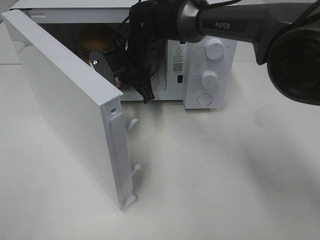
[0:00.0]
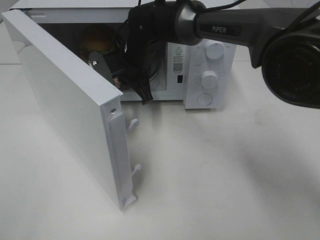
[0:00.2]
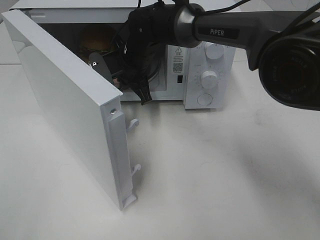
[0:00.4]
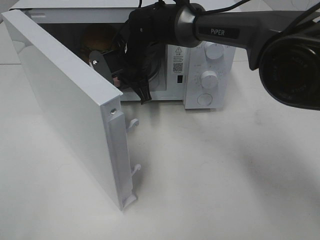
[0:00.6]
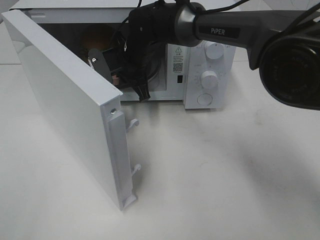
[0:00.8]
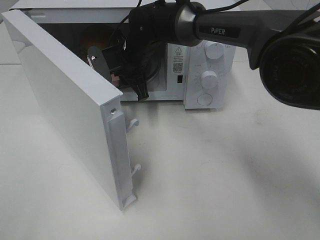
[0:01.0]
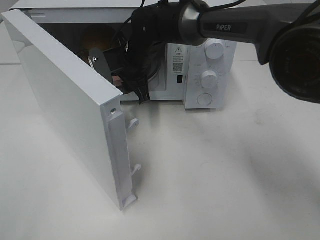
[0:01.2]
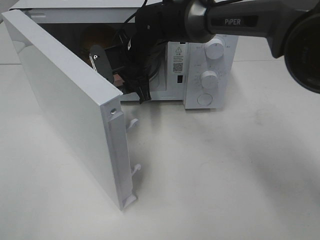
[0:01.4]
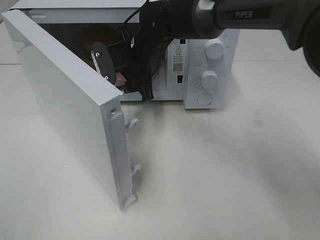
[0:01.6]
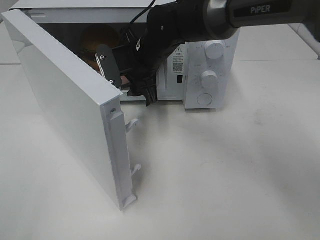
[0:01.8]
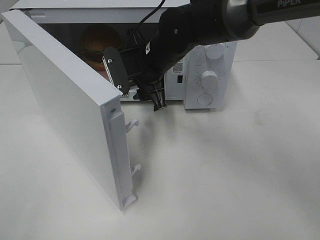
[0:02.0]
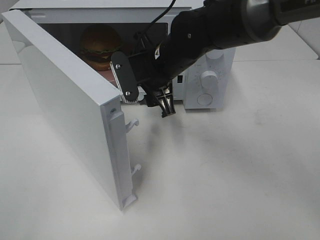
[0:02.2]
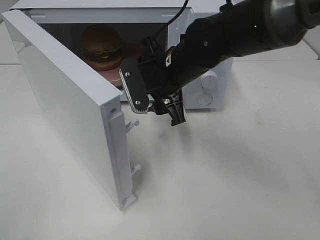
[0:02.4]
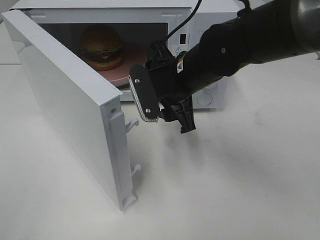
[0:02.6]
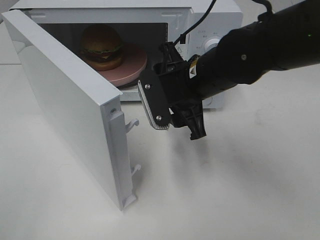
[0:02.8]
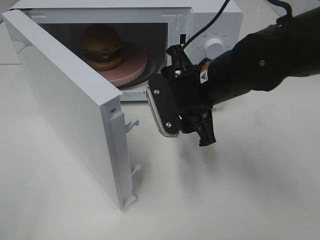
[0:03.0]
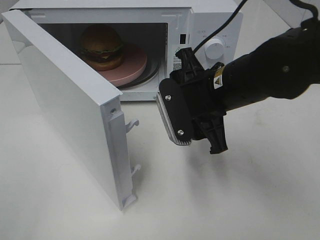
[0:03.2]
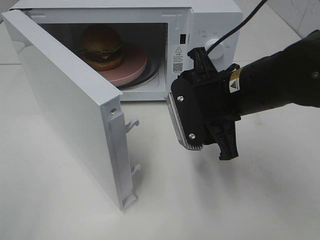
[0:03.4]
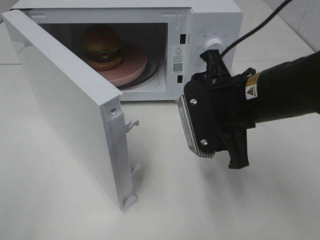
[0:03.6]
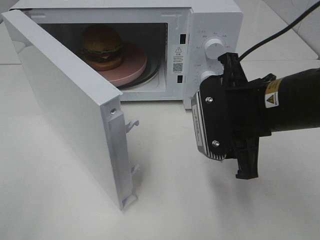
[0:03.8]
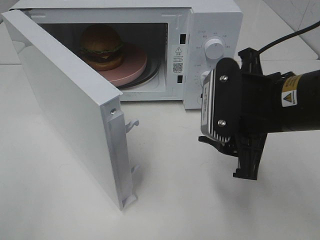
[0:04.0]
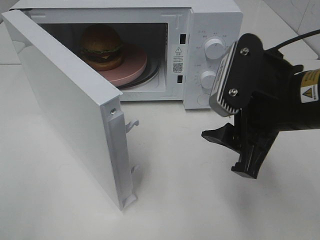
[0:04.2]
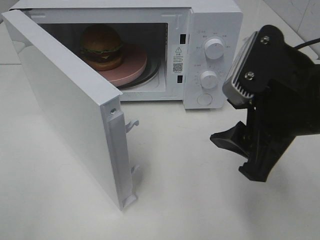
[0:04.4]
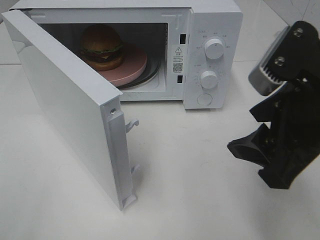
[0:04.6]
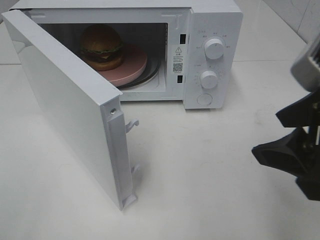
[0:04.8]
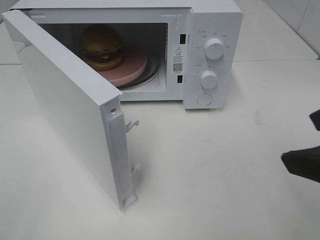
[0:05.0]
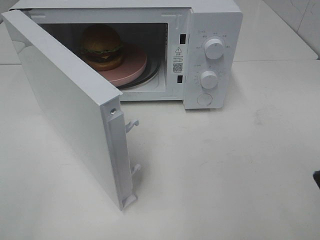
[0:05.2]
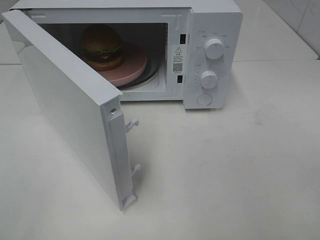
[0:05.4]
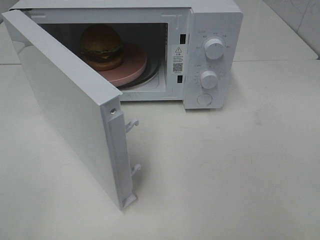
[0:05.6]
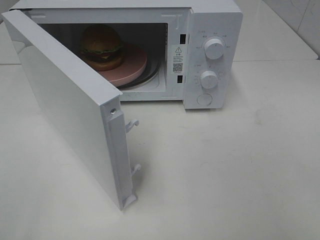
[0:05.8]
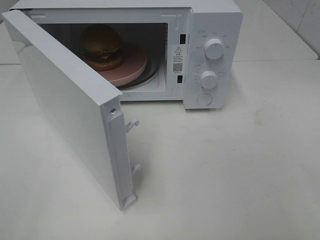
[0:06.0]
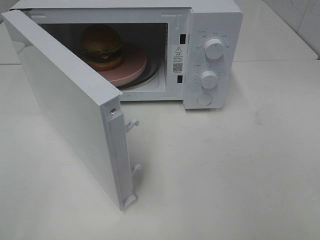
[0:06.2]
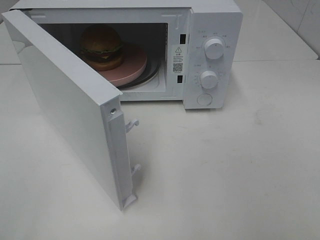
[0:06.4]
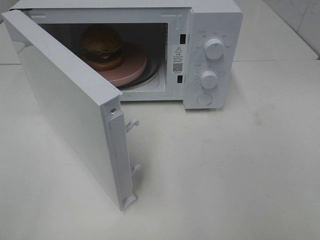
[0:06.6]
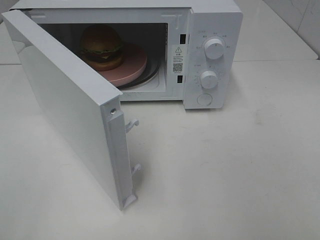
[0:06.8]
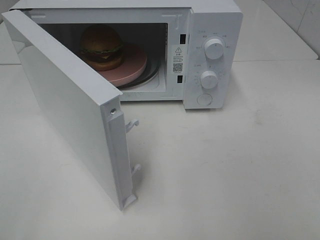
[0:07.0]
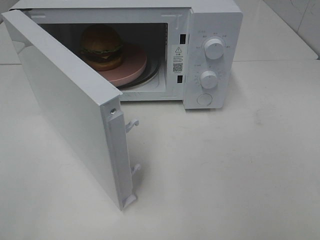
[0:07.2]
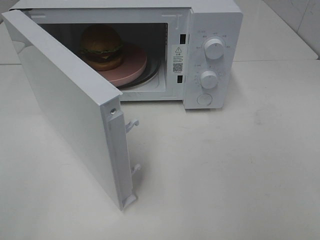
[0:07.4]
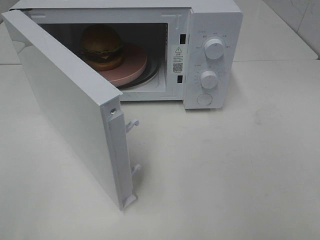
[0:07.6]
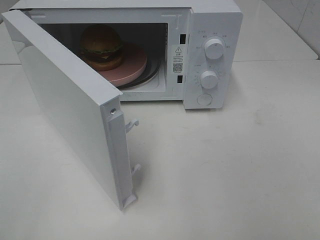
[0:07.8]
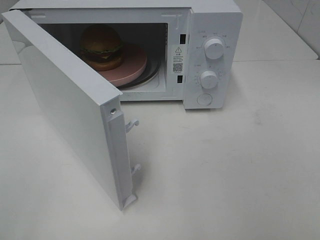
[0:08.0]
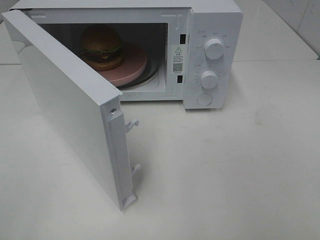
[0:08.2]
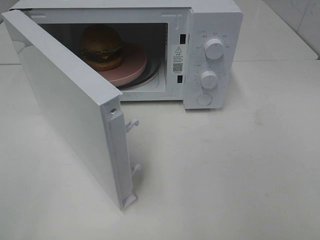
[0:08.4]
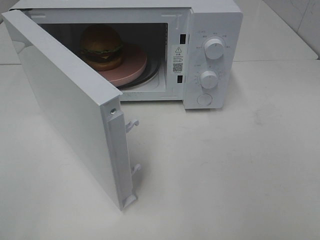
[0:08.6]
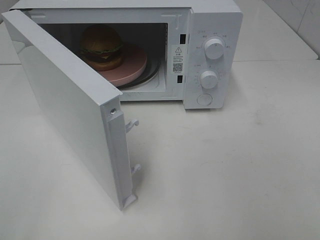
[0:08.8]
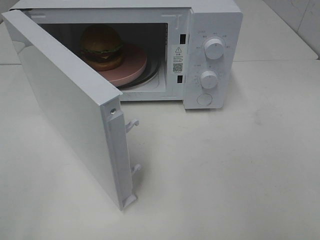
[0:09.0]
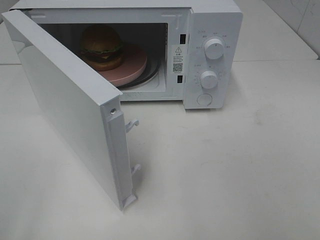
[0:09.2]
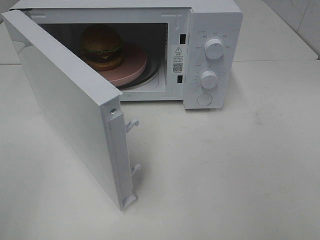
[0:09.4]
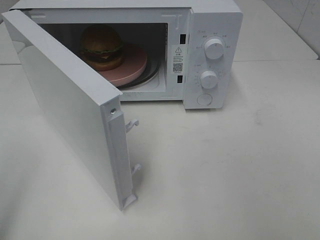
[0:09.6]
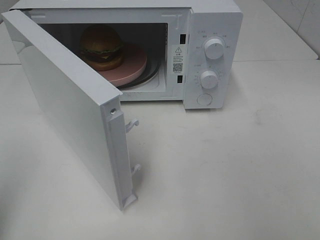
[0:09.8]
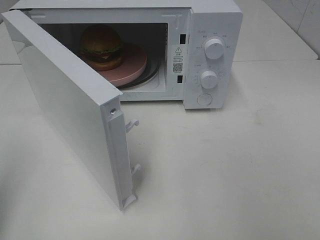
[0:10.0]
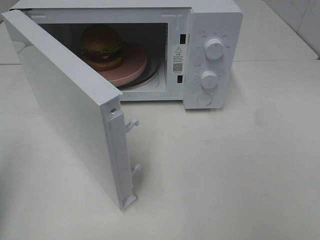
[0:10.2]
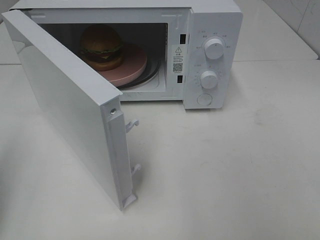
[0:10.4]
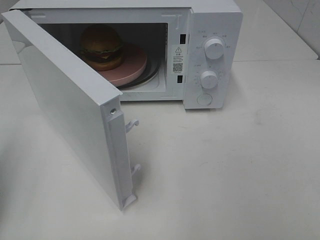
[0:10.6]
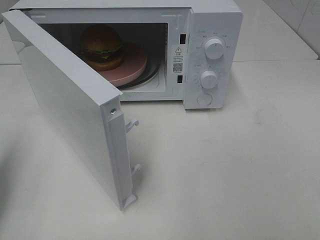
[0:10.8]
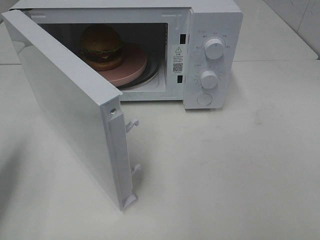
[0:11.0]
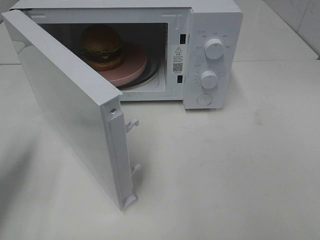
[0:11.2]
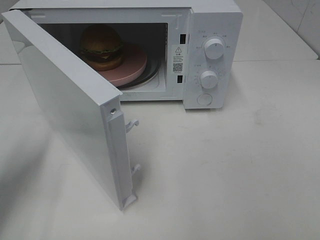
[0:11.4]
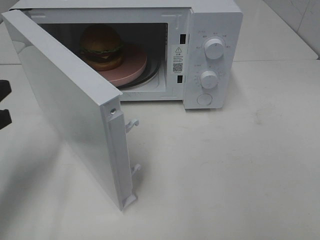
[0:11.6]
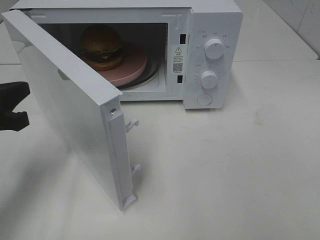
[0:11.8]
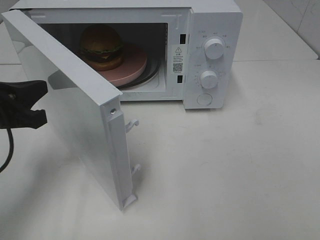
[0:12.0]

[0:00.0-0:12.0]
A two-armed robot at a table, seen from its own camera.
Task of the whole recording: Heat the burger.
0:00.0 to 0:01.6: The right gripper opens its fingers.
0:01.6 to 0:03.0: The right gripper shifts approximately 15 cm backward and to the right.
0:03.0 to 0:04.4: The right gripper is displaced backward, to the right and upward by approximately 15 cm.
0:04.4 to 0:06.0: The right gripper travels backward and to the right by approximately 20 cm.
0:10.4 to 0:12.0: The left gripper heads forward, to the right and downward, covering some 15 cm.

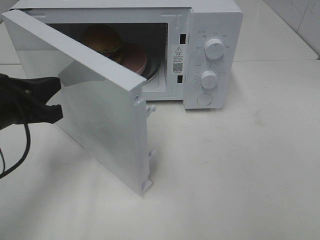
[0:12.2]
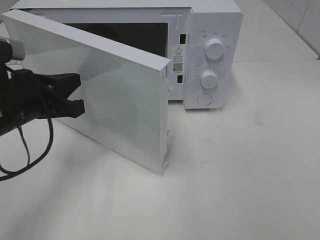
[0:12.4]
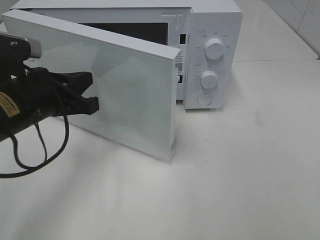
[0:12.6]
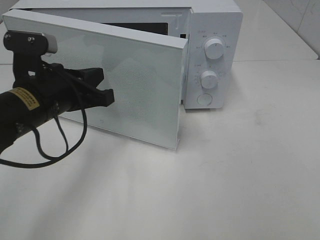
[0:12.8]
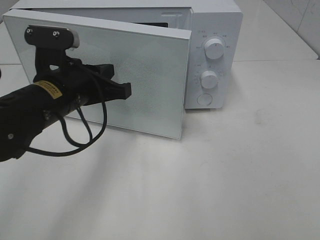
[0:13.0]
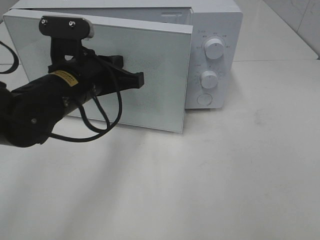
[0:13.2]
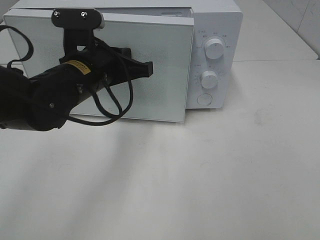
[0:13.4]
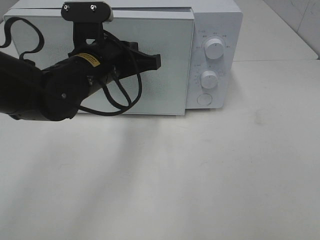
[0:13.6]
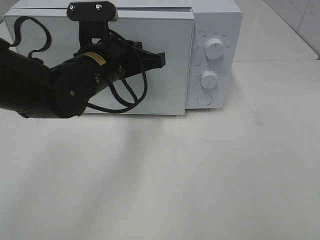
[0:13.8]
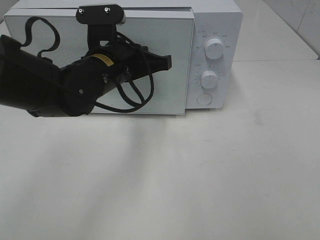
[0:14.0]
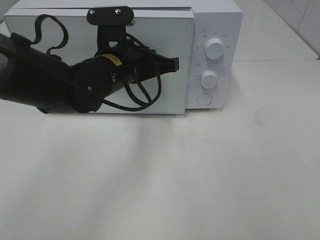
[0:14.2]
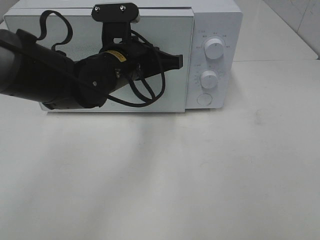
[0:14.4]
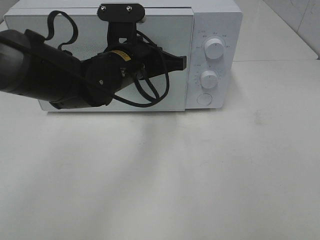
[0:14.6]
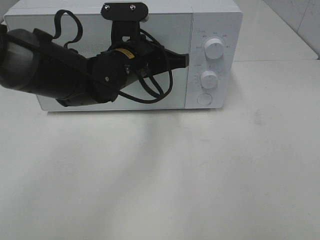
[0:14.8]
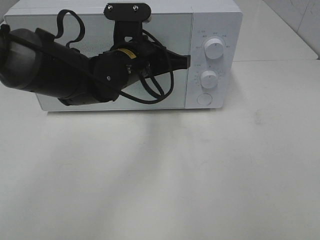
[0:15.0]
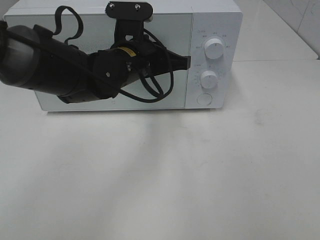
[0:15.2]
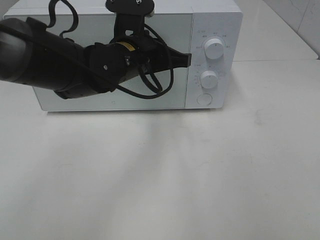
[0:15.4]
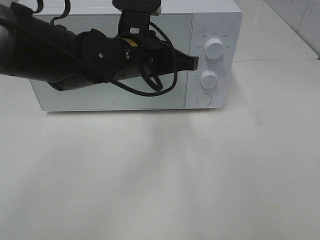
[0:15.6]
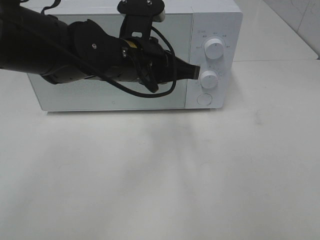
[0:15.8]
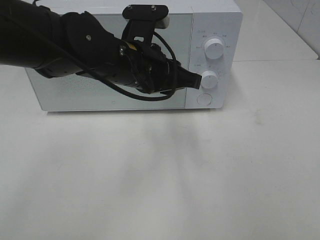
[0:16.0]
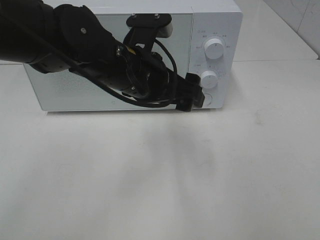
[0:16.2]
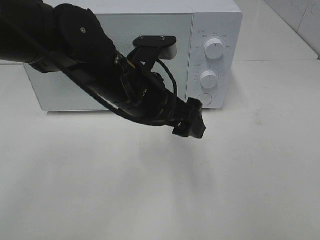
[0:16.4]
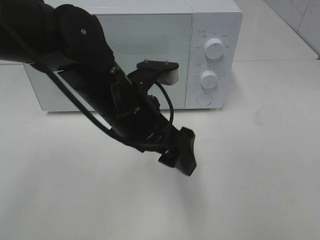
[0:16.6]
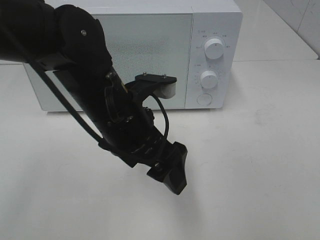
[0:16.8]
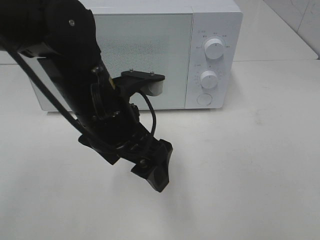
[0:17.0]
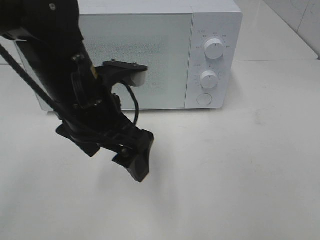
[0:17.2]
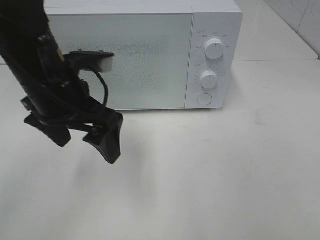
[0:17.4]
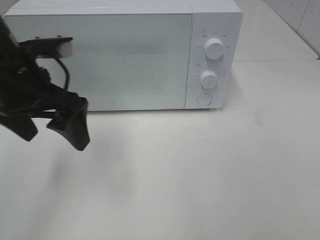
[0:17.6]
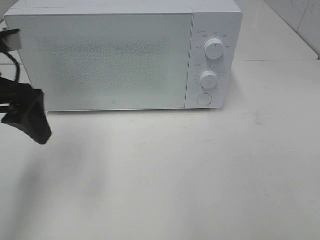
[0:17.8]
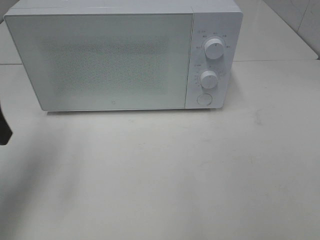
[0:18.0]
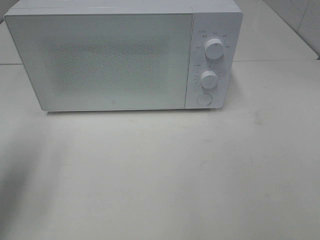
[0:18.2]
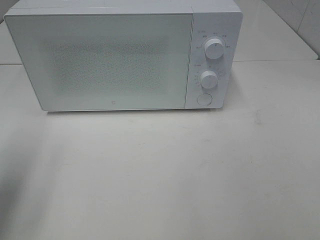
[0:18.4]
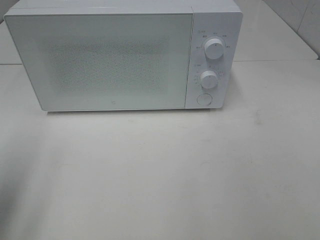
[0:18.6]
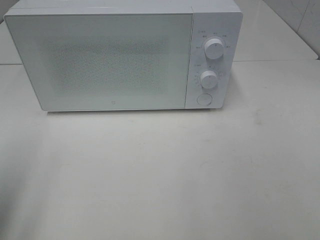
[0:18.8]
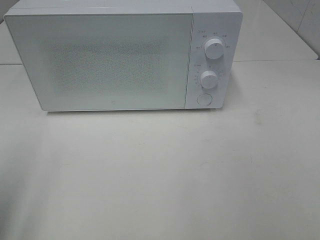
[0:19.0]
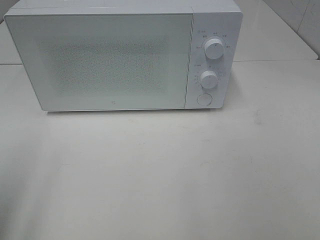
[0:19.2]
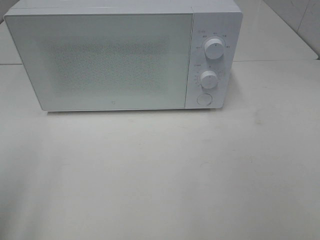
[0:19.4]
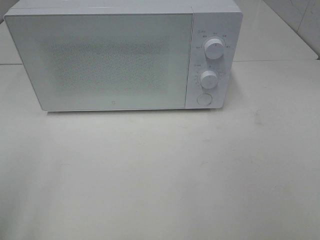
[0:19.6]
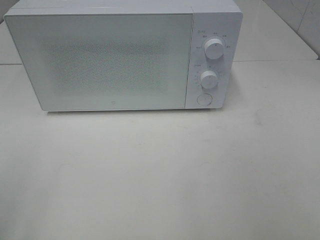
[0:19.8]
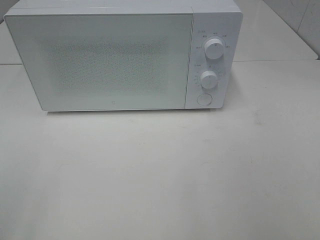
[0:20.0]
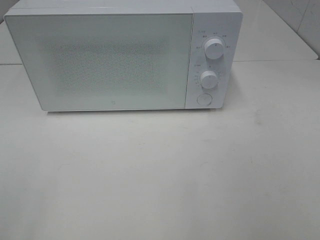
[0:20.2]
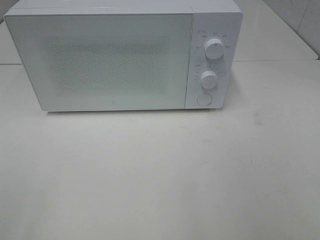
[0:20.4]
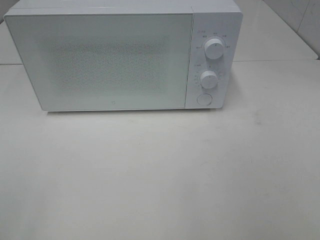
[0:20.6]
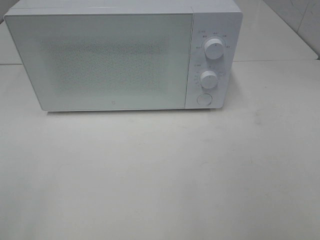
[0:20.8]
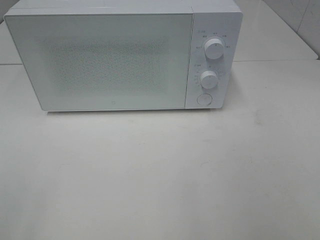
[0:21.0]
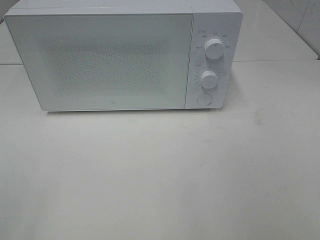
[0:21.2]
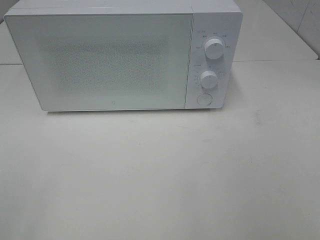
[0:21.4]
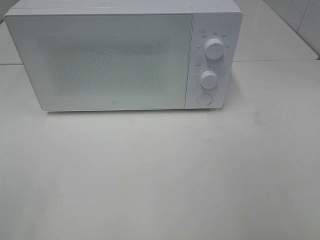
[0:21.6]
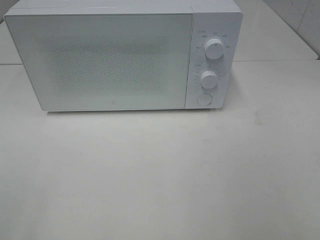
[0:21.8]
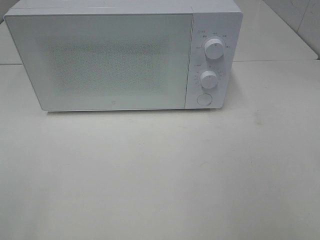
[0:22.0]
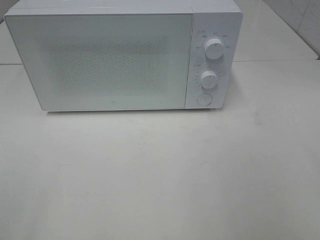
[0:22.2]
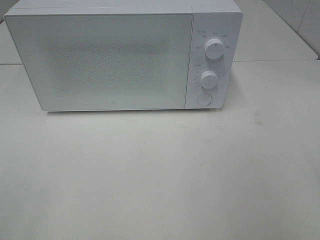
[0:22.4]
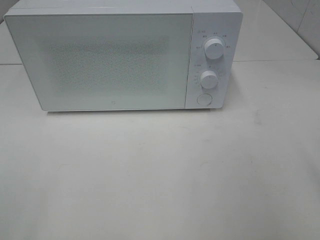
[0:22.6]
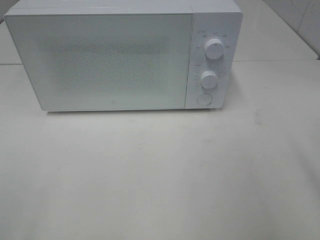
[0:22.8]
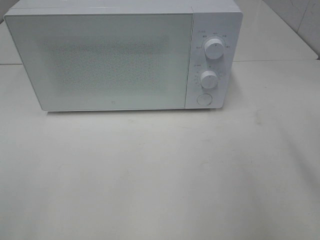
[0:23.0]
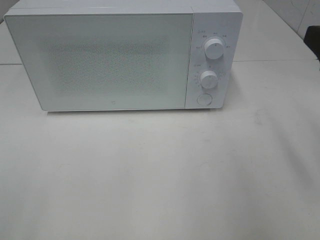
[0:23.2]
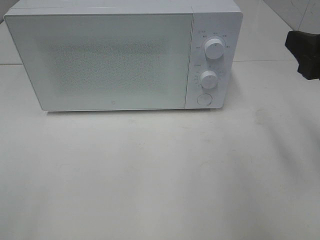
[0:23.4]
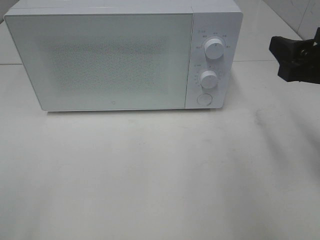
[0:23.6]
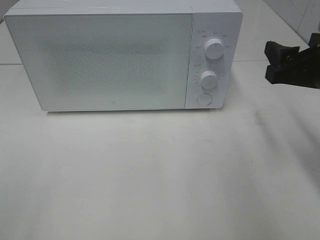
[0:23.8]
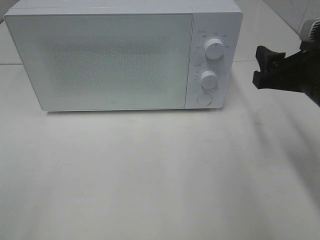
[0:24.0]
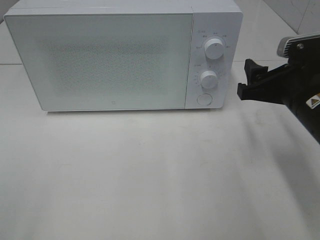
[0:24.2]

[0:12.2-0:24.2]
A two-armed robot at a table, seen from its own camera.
Task of the whole recording: Heat the burger.
Step, 0:12.2 to 0:16.0: Left hand: close the microwave door.
0:12.2 to 0:13.8: The left gripper heads to the right and forward, covering about 15 cm.
0:13.8 to 0:15.2: There are only small adjustments of the grippers.
0:15.2 to 0:16.6: The left gripper shifts roughly 10 cm backward, and opens its fingers.
0:16.6 to 0:18.2: The left gripper shifts some 25 cm to the left.
0:18.2 to 0:19.8: The left gripper goes some 15 cm backward.
0:22.6 to 0:24.2: The right gripper shifts roughly 20 cm forward and downward.
